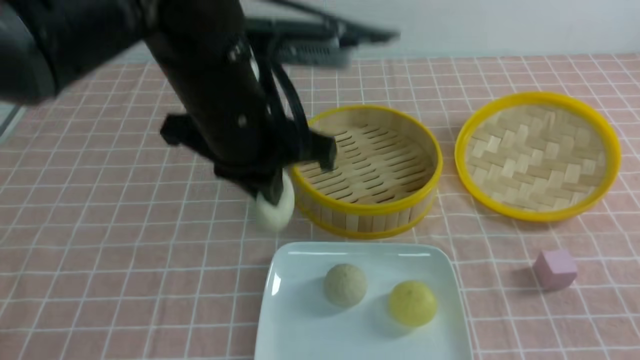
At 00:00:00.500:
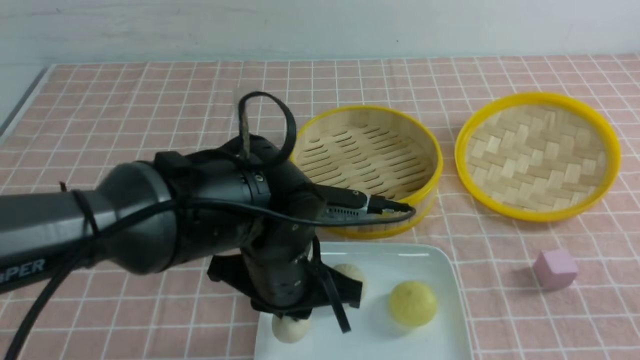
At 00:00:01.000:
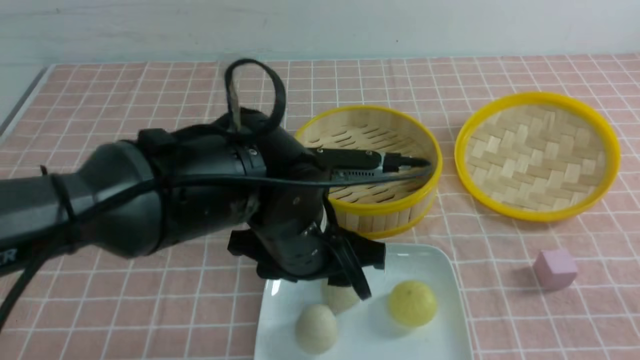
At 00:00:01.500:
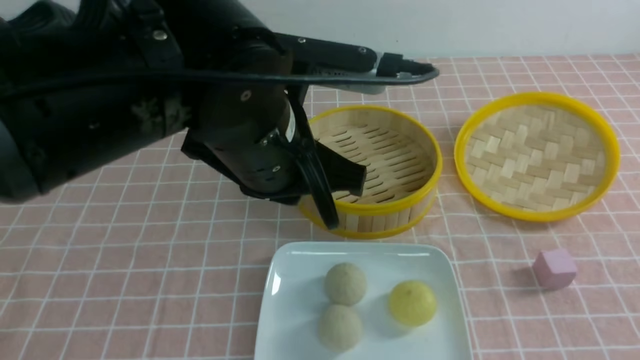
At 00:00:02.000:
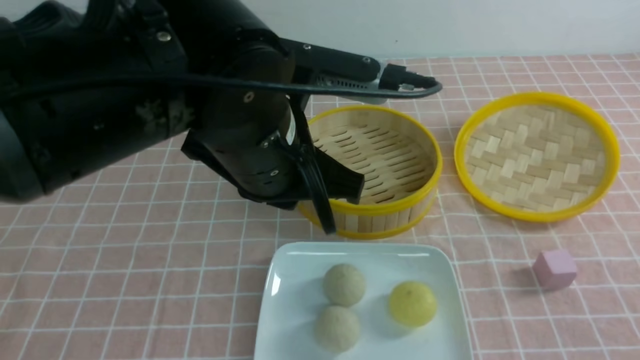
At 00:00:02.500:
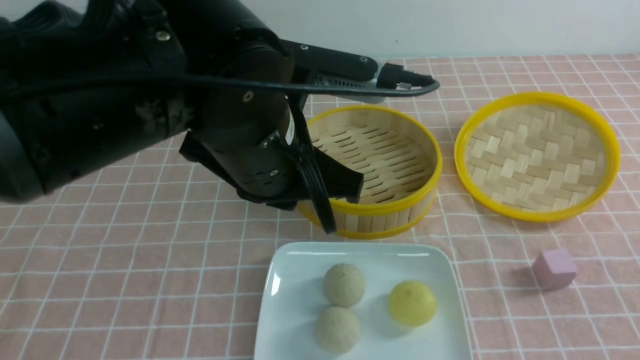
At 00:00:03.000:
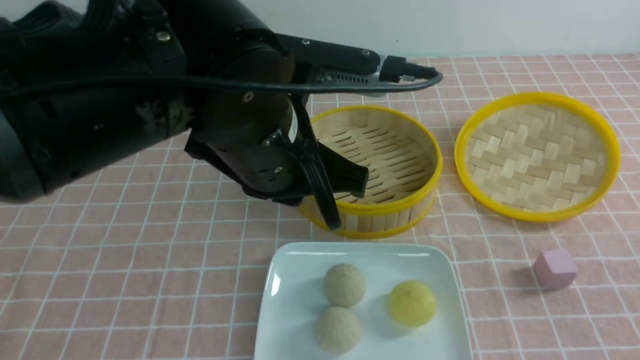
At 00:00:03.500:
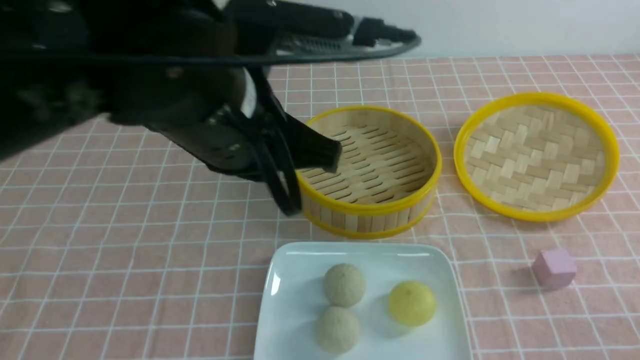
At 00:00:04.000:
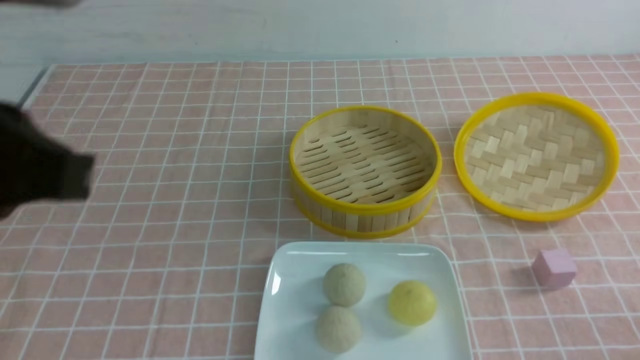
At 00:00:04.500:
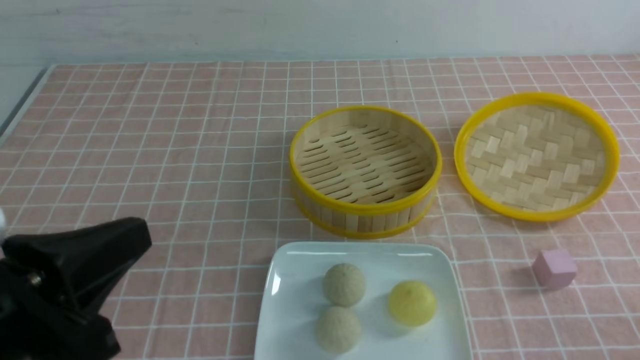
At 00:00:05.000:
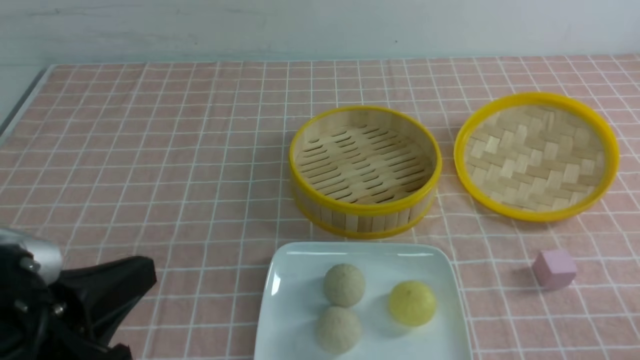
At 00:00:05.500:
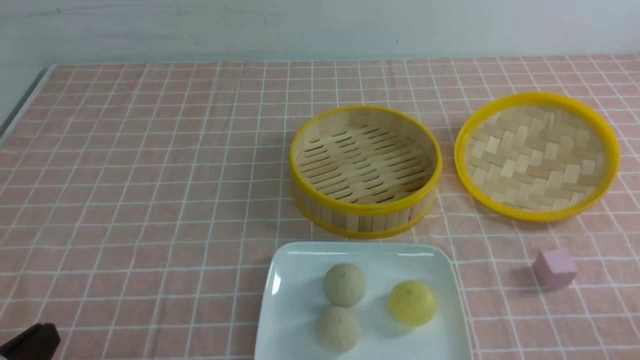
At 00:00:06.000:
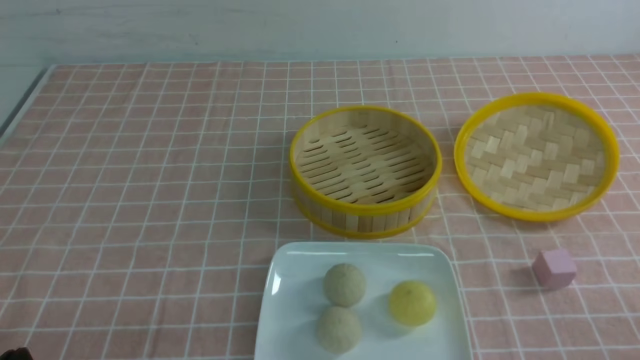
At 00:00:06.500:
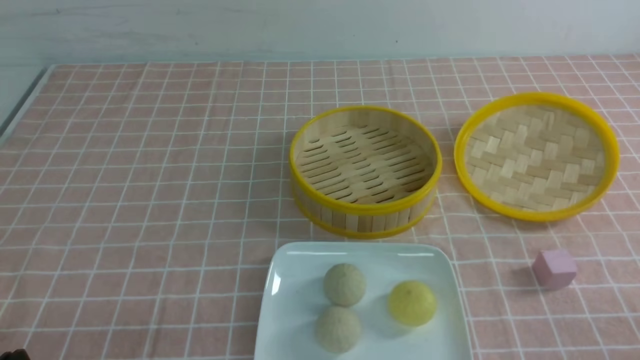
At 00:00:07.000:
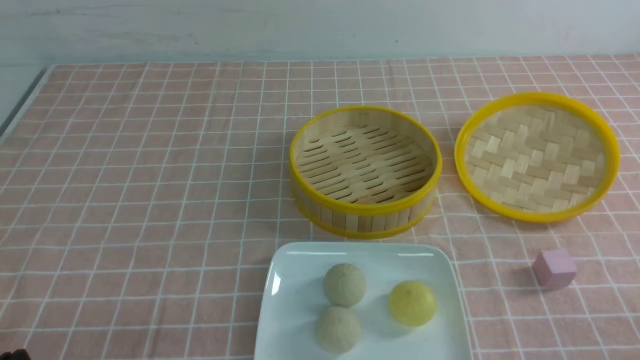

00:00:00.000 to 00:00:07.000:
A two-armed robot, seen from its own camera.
00:00:00.000 to 00:00:02.000: The right gripper heads backward, covering about 5 cm, and closes up; the left gripper goes downward and returns, about 10 cm each way, and opens and closes again.
00:00:02.000 to 00:00:03.500: The left gripper shifts by roughly 5 cm. Meanwhile the right gripper heads downward, covering about 15 cm.
00:00:03.500 to 00:00:05.000: The left gripper goes about 20 cm to the left, backward and downward.
00:00:05.000 to 00:00:07.000: The left gripper moves downward and to the left, roughly 15 cm.
